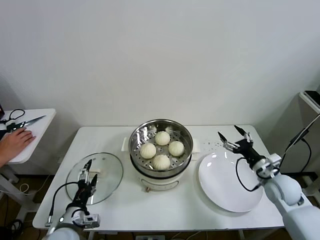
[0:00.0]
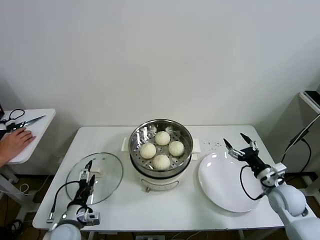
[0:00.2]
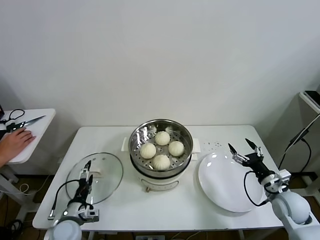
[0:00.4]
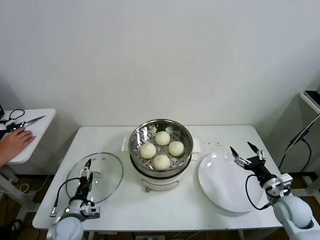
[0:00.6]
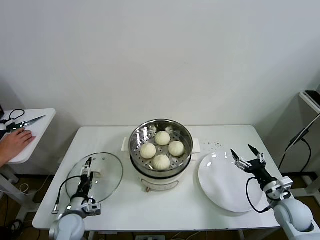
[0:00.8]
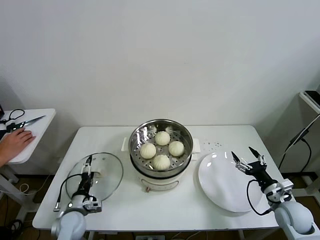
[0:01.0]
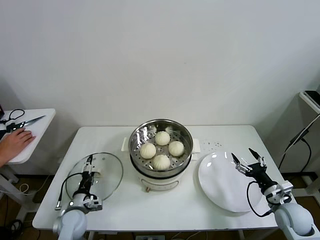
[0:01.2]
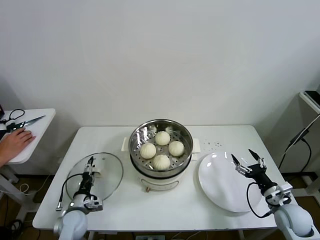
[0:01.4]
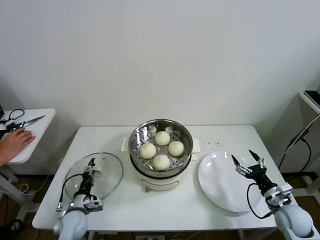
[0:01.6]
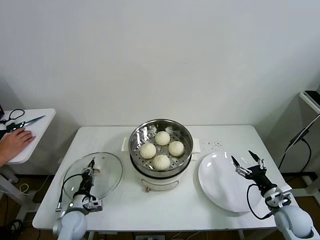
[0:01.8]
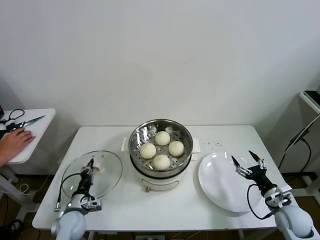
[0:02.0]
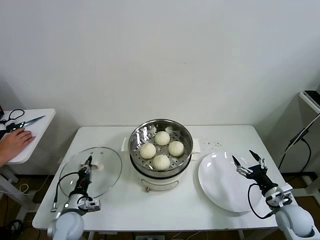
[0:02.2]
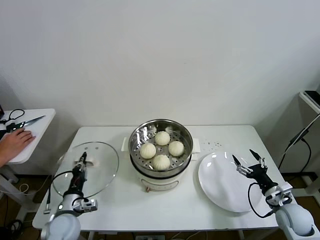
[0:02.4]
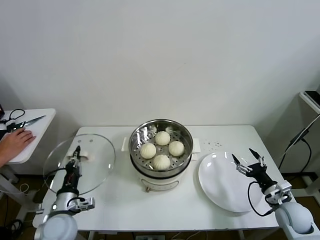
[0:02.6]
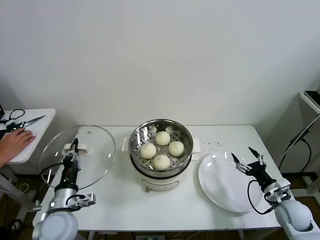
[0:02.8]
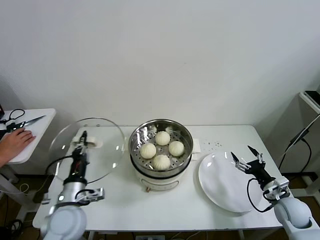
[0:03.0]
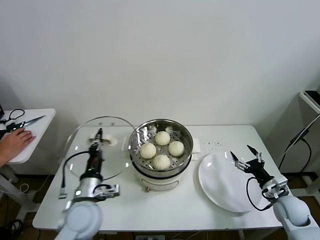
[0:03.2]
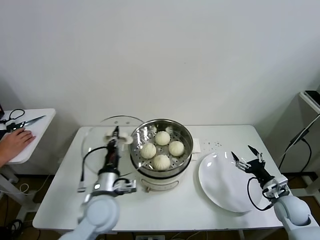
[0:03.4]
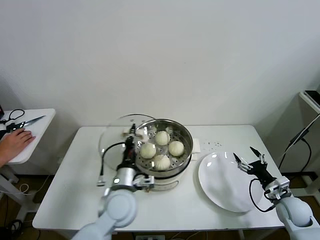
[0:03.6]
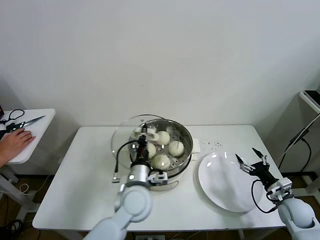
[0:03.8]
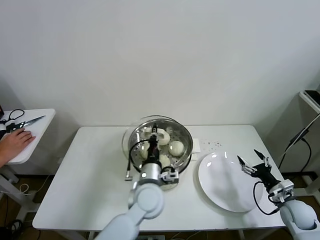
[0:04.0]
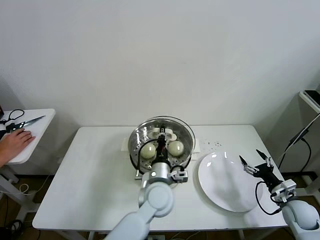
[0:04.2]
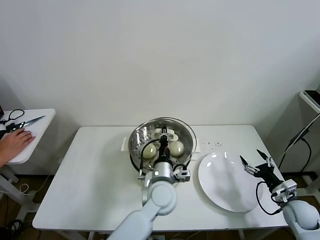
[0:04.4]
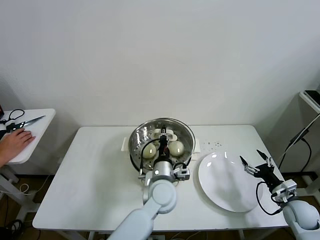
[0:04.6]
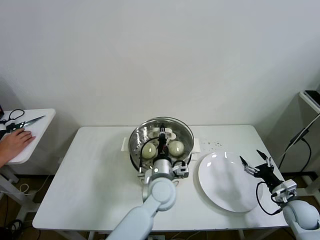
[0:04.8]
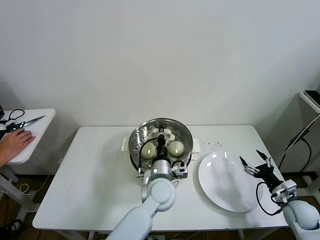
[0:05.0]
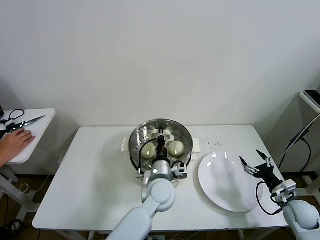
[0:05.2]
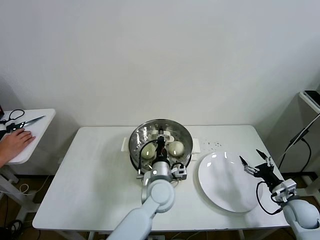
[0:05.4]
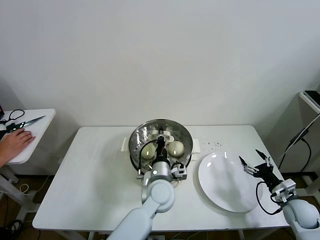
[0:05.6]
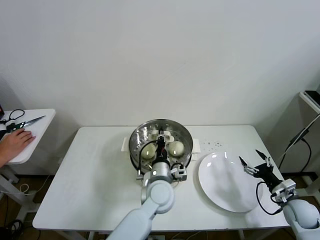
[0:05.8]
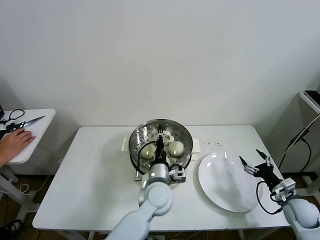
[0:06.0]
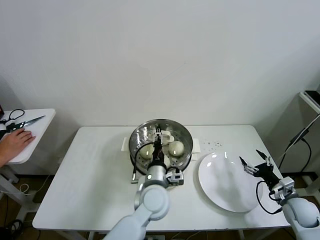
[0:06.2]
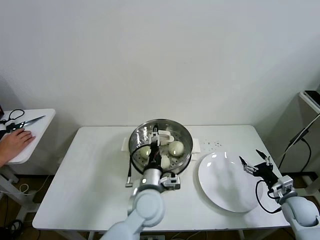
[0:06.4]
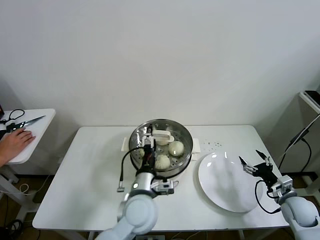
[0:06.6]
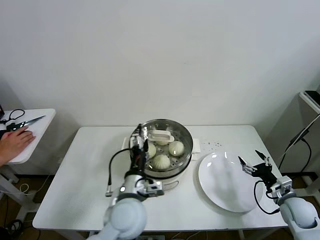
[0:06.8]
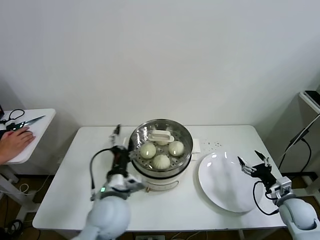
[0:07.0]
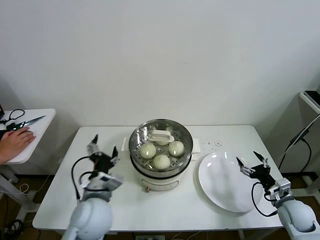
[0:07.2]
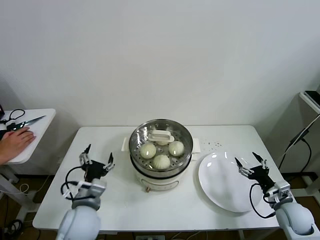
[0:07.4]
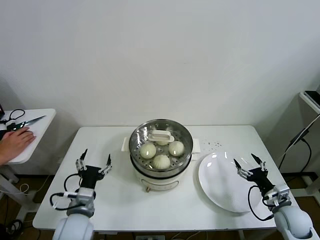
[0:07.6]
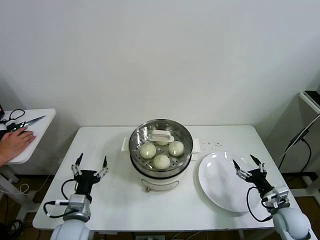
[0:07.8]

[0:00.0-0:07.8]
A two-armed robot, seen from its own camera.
Task of the whole recording: take steamed baozi put them in steamer then cover it.
Step, 0:02.0 to 0:06.4: Place the pot lid on the steamer with left gripper.
0:00.0 to 0:01.6: The left gripper heads downward and forward, covering about 10 cm, and closes its fingers. Meanwhile the right gripper is displaced backward and downward by about 10 cm.
0:01.6 to 0:03.2: The left gripper is displaced upward and to the right by about 20 cm, and closes up.
0:03.2 to 0:04.6: The left gripper moves to the right, some 25 cm.
0:04.6 to 0:06.2: The left gripper opens.
0:06.2 to 0:07.8: The left gripper travels to the left by some 25 cm, and opens its fingers. The right gripper ends up some 5 cm from where it was.

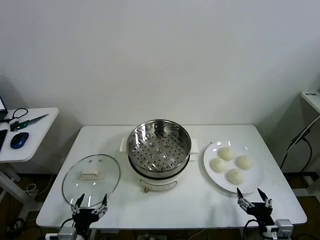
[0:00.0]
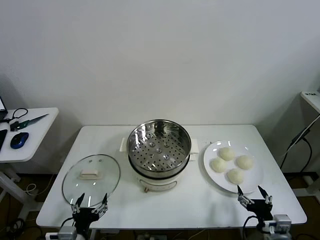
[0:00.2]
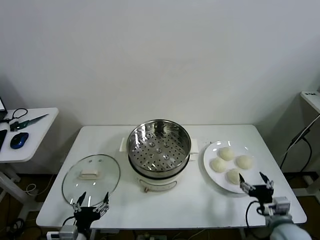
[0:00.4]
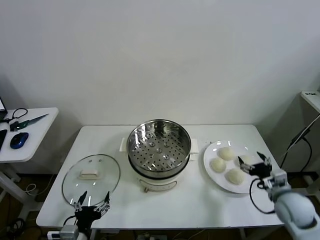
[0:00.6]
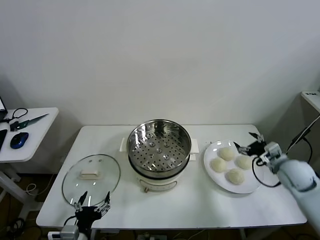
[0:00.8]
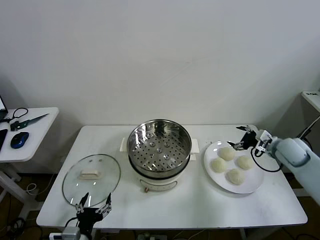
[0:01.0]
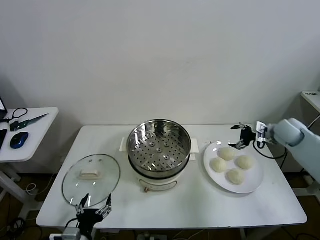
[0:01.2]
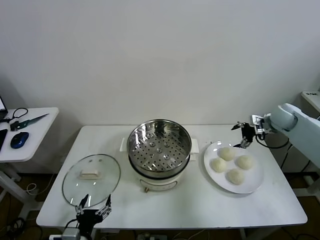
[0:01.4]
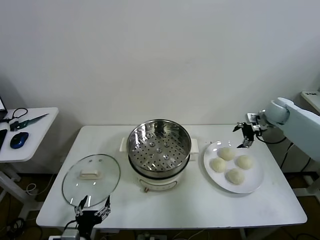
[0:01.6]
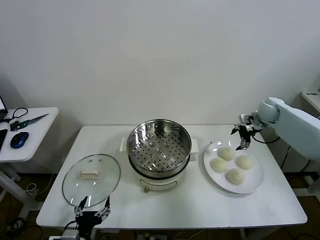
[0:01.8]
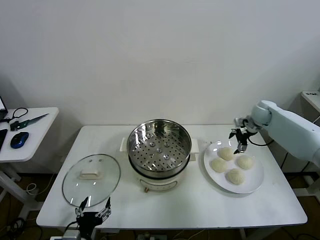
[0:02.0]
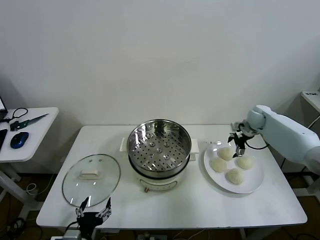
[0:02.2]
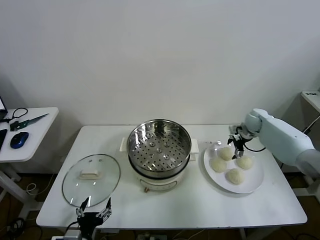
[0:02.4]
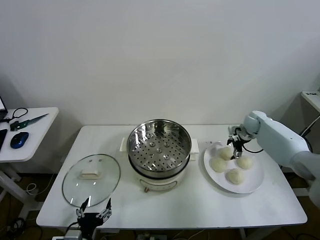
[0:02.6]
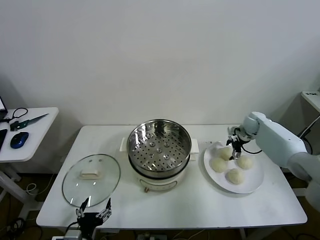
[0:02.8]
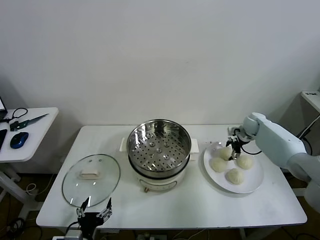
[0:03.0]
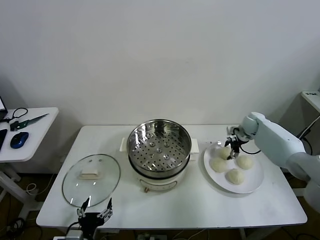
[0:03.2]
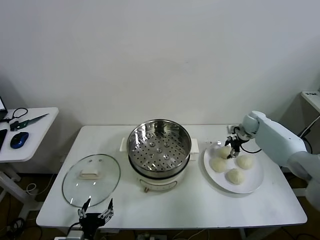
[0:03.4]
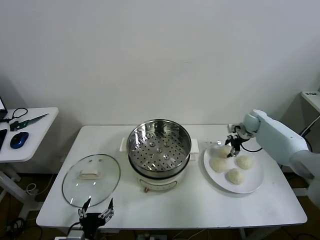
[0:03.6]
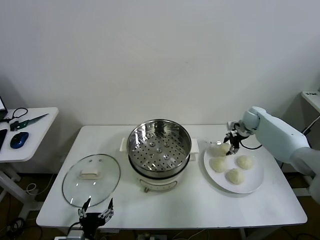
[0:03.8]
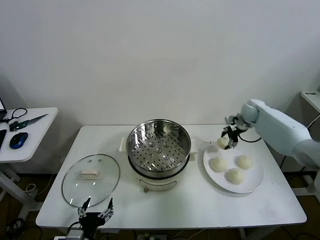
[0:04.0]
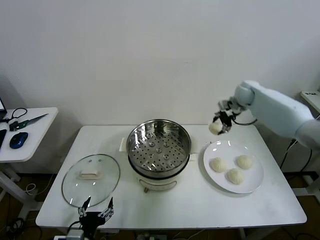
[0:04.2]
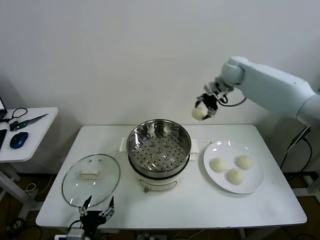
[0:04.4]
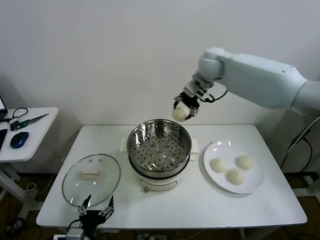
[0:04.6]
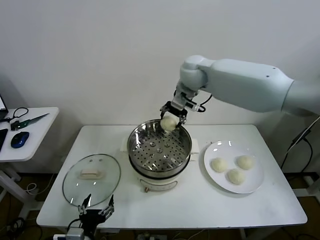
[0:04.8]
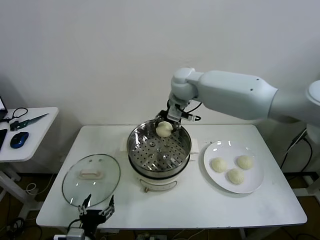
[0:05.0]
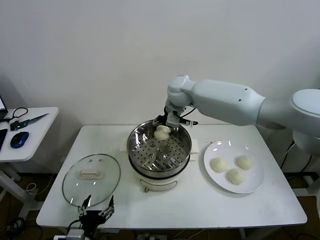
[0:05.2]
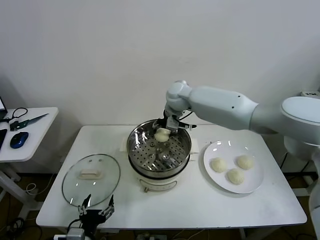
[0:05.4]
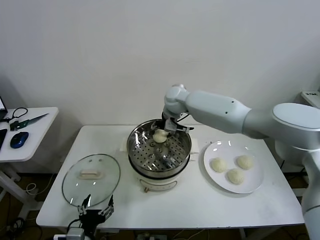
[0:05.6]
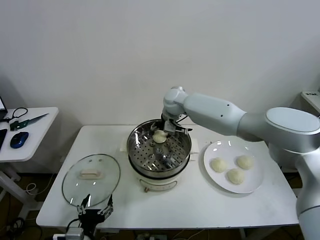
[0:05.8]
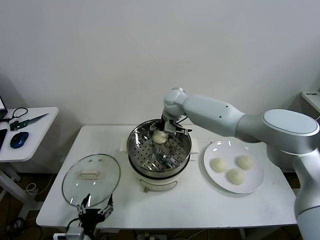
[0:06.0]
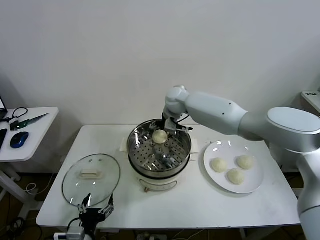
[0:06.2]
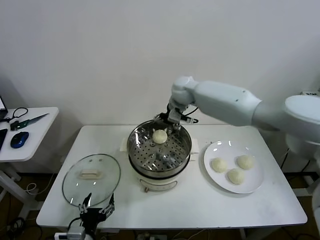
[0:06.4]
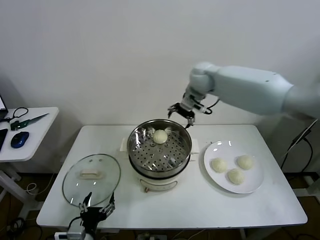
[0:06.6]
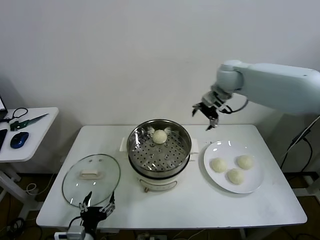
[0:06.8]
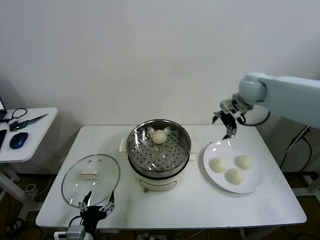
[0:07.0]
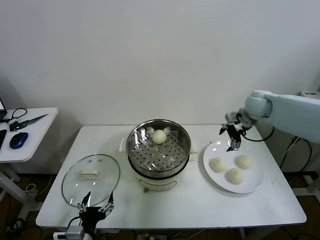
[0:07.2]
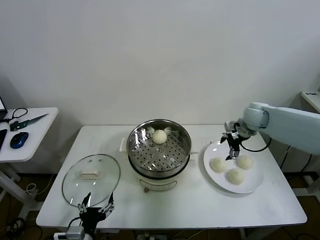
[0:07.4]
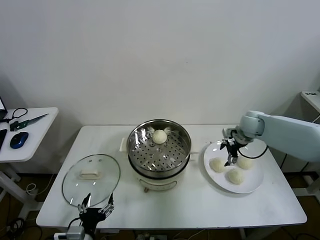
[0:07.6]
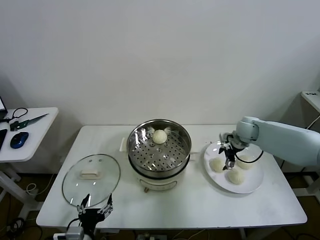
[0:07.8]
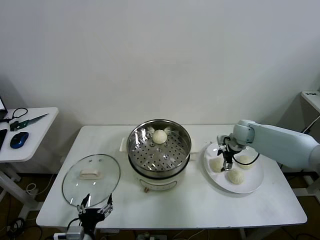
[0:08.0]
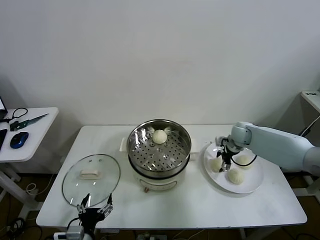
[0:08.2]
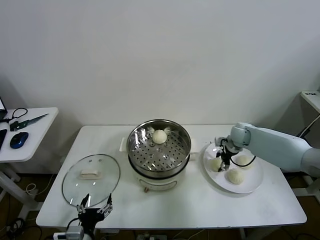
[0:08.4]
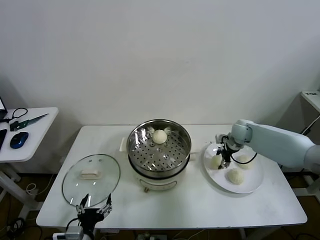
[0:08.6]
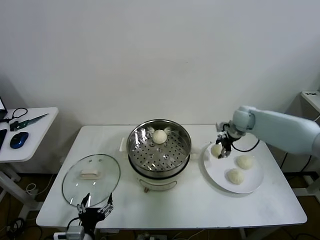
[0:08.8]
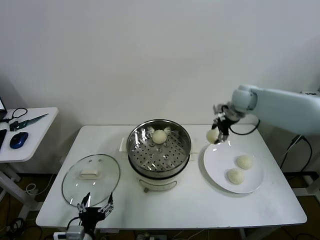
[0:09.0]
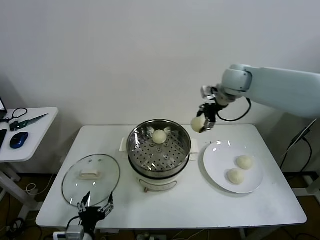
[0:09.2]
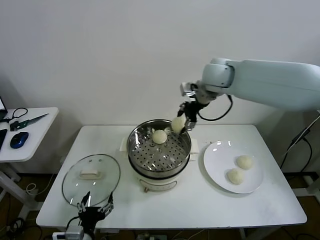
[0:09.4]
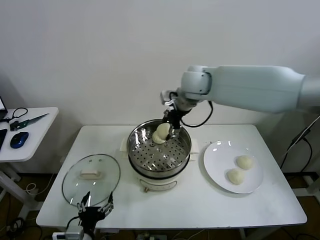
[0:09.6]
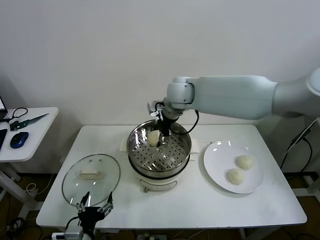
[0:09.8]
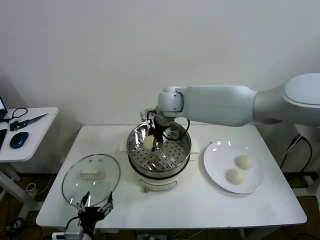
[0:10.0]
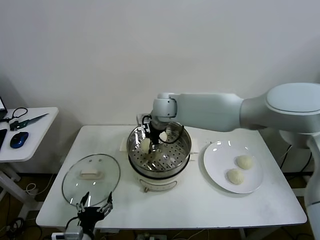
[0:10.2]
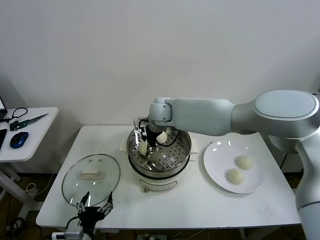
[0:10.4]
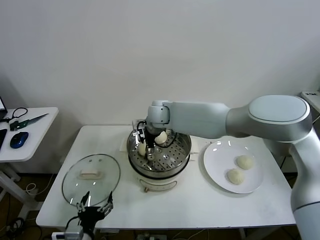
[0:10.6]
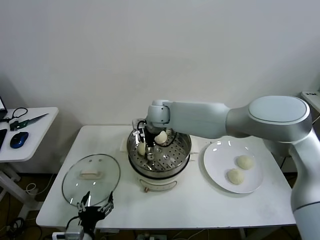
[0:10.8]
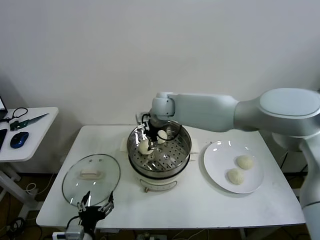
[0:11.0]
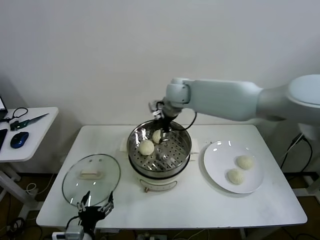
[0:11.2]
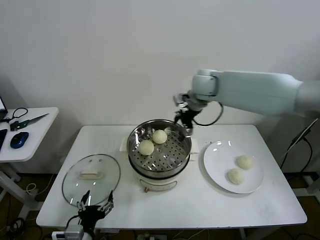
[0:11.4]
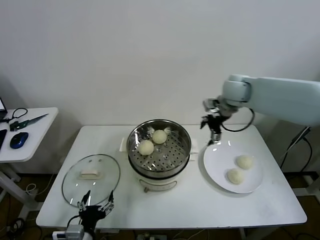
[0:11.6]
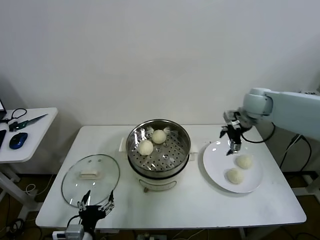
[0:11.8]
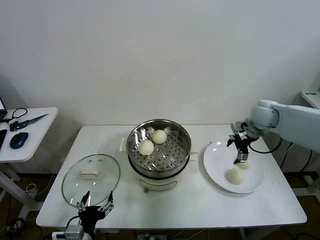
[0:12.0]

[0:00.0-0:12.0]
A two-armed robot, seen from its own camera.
Task of the whole recording: take steamed baozi put them in steamer then cover it.
Step, 0:00.0 to 0:03.0: Grasp the baozi in the plate with right gripper.
Step, 0:03.4 to 0:06.2: Place the baozi on the steamer with right gripper.
Step, 0:06.4 to 0:08.2: Grasp the baozi in the plate with right gripper.
Step, 0:08.4 to 0:10.8: Place the baozi on the steamer with right gripper.
0:01.6 to 0:03.0: The right gripper is displaced downward by about 10 cm.
0:03.0 to 0:04.4: The right gripper shifts approximately 35 cm upward and to the left, and closes up.
0:04.4 to 0:06.0: The right gripper is displaced to the left and downward by about 20 cm, and opens up.
0:06.0 to 0:07.6: The right gripper travels to the right by roughly 30 cm.
0:07.6 to 0:09.0: The right gripper shifts approximately 15 cm upward and to the left, and closes up.
0:09.0 to 0:10.4: The right gripper goes roughly 30 cm to the left.
0:10.4 to 0:12.0: The right gripper shifts roughly 35 cm to the right, and opens up.

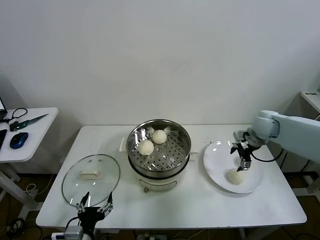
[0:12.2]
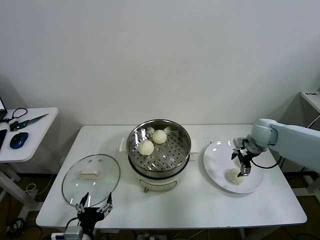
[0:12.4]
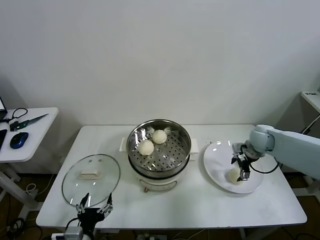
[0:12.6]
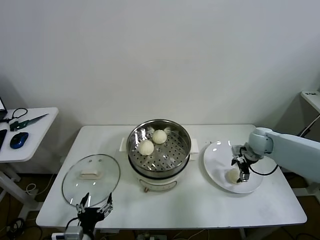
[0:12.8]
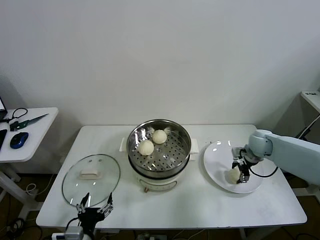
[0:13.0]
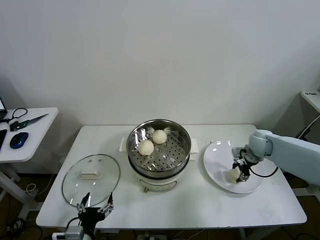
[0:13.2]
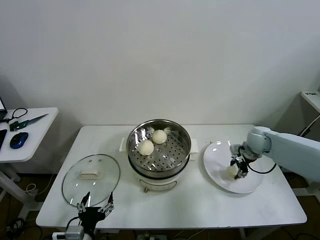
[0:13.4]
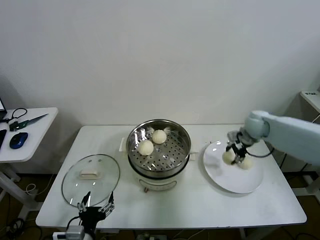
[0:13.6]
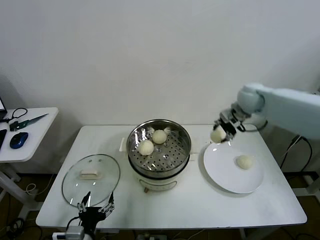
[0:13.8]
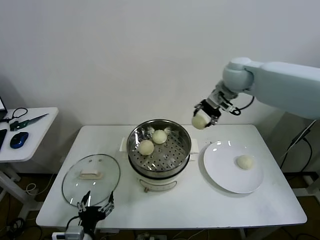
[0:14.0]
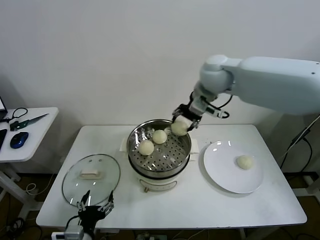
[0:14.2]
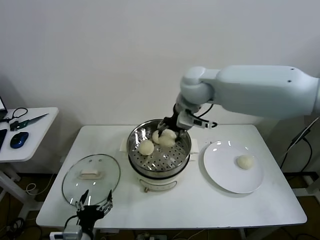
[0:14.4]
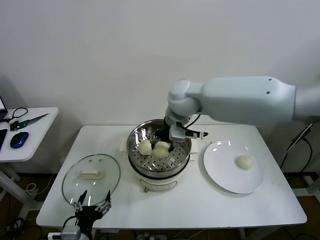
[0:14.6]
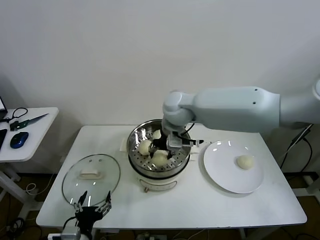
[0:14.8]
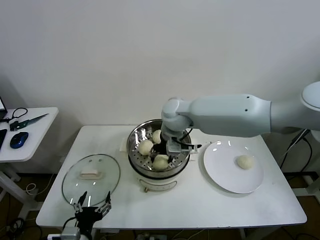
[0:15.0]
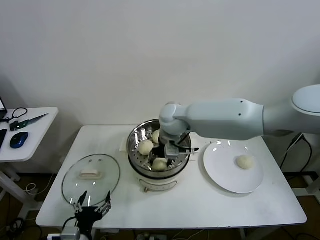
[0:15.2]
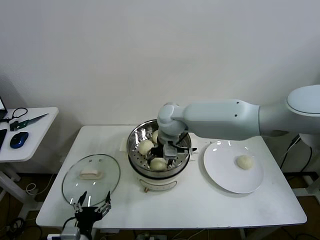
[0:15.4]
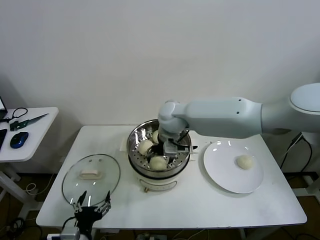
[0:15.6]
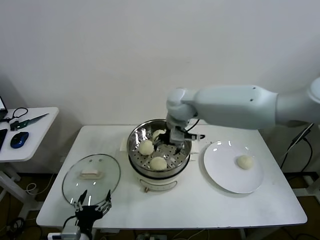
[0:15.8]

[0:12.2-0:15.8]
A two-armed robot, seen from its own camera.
Task of the whole recording: take steamed baozi put them in steamer then cover it.
Step, 0:12.2 to 0:15.6: Place the baozi on the steamer with right gripper.
0:12.2 to 0:14.0: The right gripper travels upward and to the left by about 25 cm, and closes its fingers.
0:14.0 to 0:15.8: The right gripper is displaced to the left and downward by about 15 cm, and opens.
